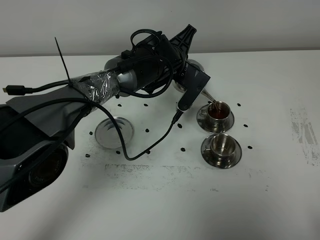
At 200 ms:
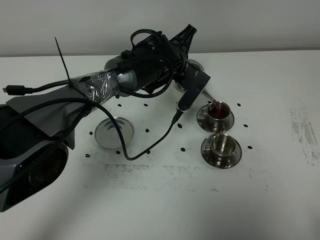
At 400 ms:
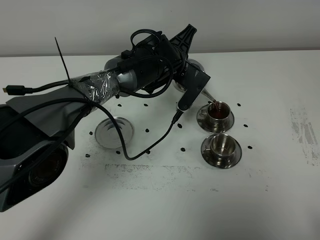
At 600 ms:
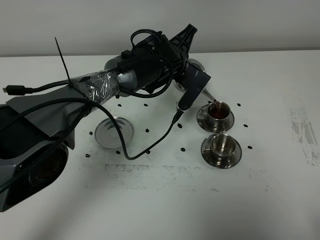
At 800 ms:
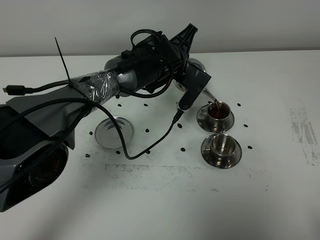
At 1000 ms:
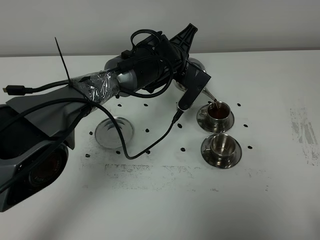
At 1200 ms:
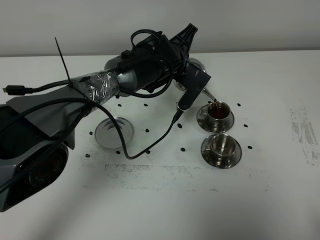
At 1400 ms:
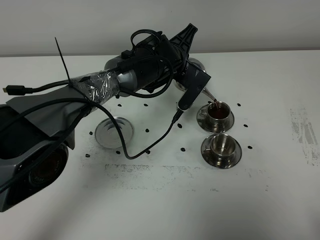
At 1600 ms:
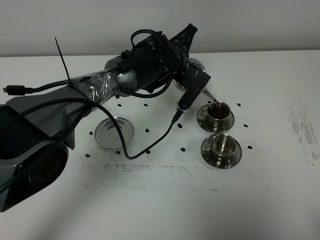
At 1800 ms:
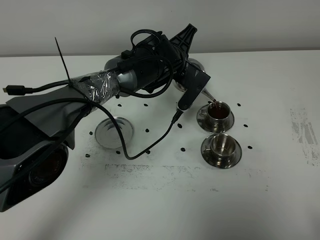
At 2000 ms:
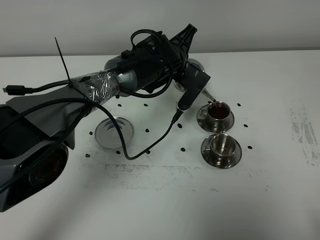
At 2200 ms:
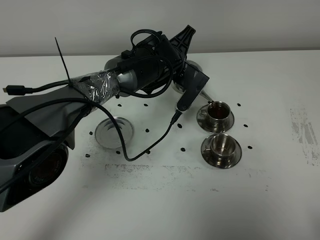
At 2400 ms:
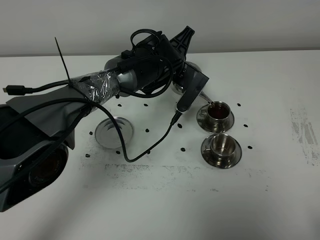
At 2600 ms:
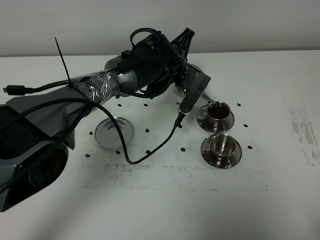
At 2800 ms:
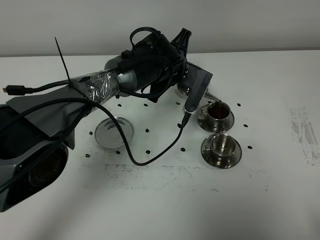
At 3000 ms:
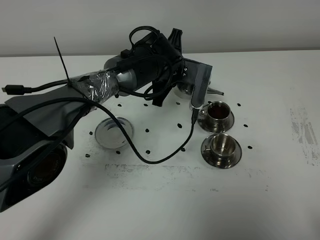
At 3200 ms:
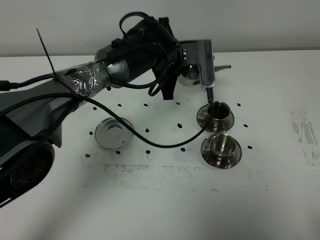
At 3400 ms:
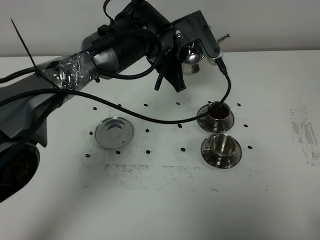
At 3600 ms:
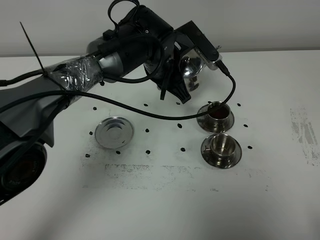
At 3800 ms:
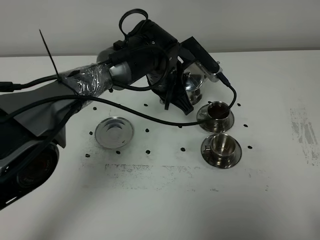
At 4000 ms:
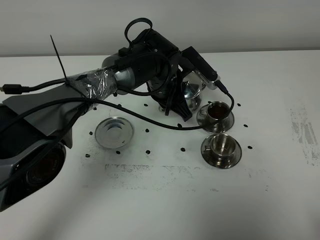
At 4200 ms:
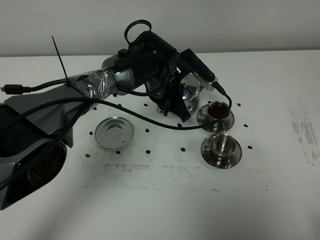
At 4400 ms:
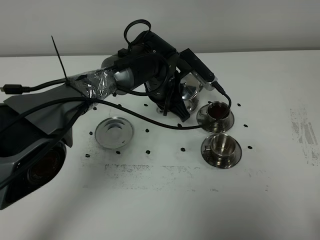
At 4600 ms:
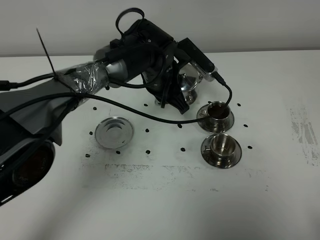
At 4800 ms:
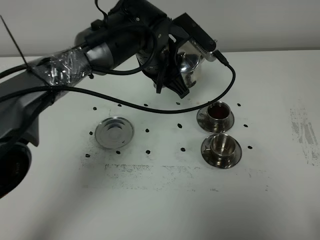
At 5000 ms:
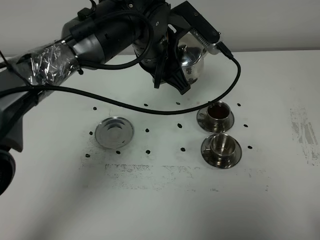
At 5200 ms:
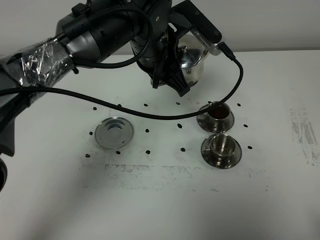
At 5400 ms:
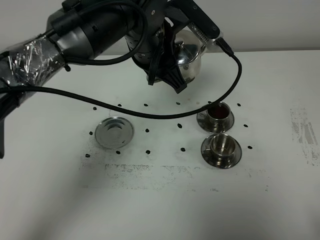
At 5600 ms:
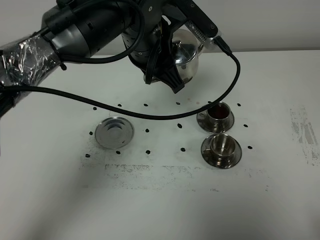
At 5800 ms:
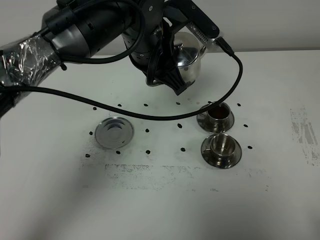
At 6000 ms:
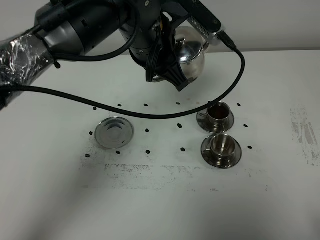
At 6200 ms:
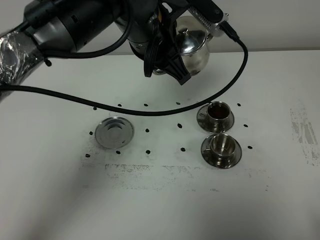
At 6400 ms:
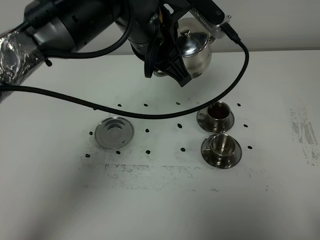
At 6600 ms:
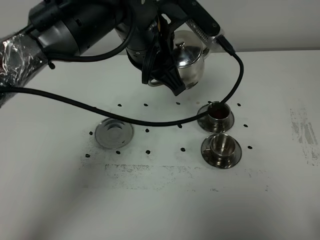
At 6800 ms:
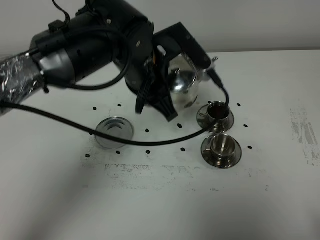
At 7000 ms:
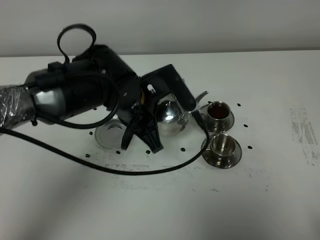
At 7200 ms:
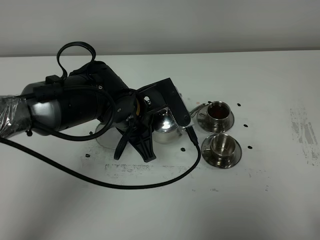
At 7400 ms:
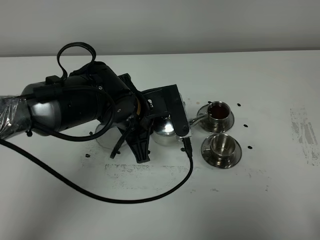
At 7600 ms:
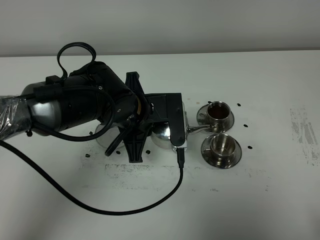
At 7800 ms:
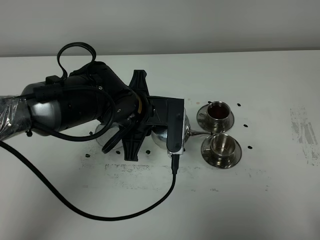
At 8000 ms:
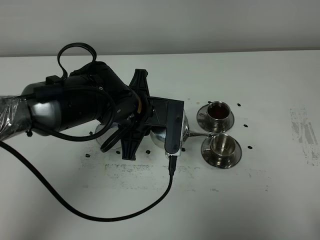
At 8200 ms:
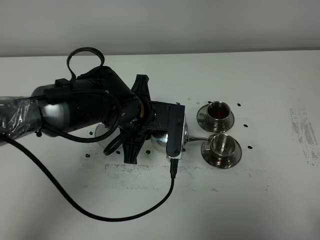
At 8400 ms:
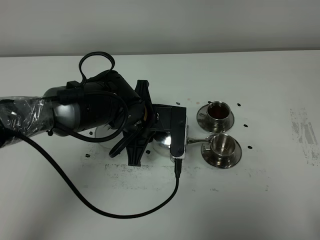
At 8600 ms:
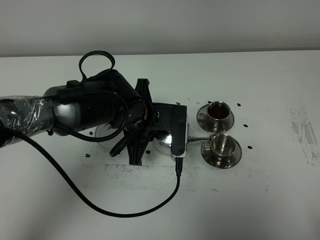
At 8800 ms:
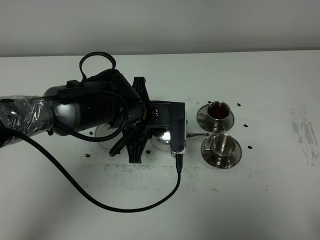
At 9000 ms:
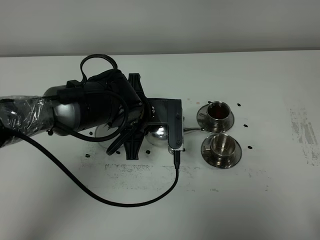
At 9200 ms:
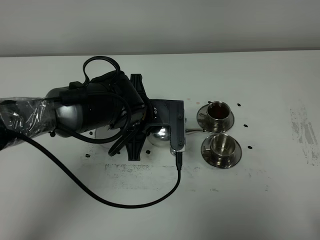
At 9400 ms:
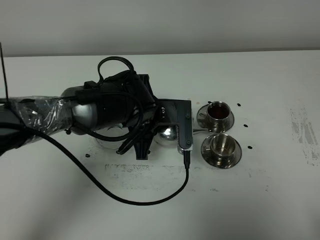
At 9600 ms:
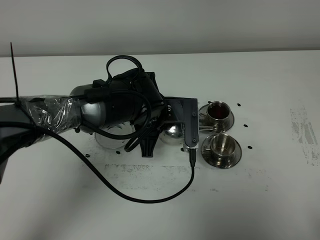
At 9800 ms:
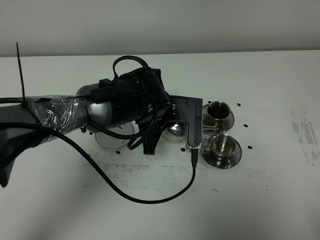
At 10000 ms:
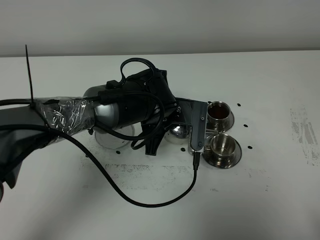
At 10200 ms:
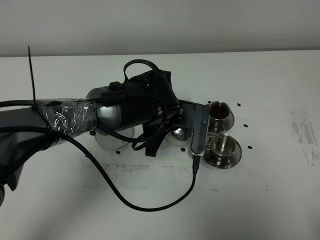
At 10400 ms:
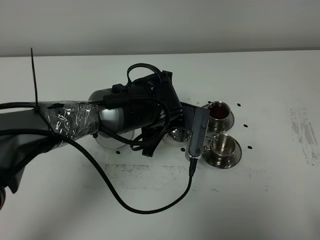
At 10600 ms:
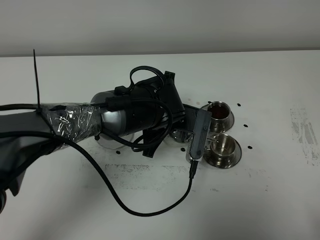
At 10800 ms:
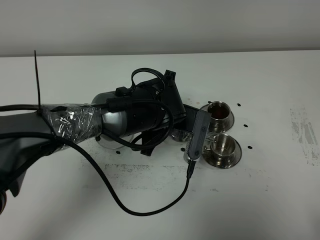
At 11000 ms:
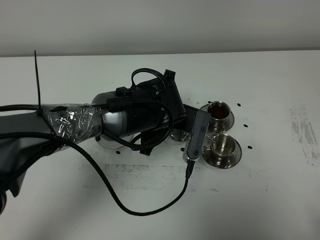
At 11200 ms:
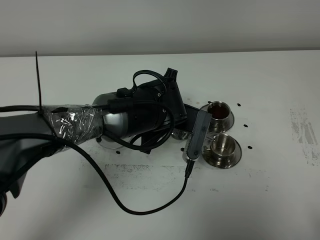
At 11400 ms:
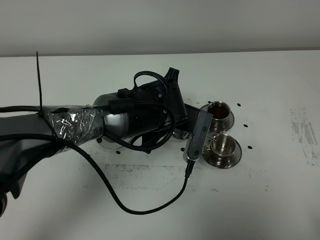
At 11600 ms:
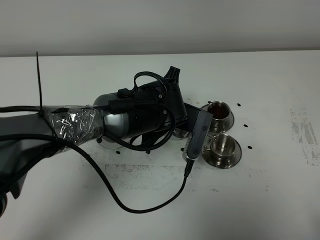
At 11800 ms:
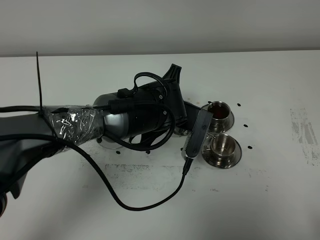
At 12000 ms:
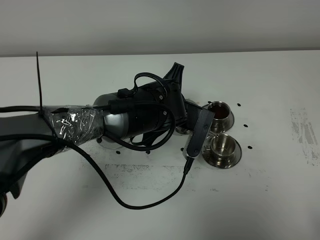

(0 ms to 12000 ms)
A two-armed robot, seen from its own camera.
Task of the whole recording: grasp the stainless steel teapot and pour the tea into the two stainless steel teacups one by one, put the stainless steel teapot back in its original place.
Step, 0 ms - 2800 ms: Pour tea into the teacup with the left gripper.
0 ms - 1600 ms: The two grippers keep their place.
3000 ms - 4400 ms: The left gripper reaches approximately 5 cm upward, then returns.
4400 ms - 6000 ms: The left gripper is displaced upward and backward by some 15 cm.
6000 ms - 7600 ms: The left gripper heads downward, covering roughly 10 cm.
7600 ms - 9000 ms: The grippers make only small movements.
9000 ms - 10400 ms: The left gripper heads to the right, covering about 5 cm.
10400 ms - 12000 ms: There are only small adjustments of the grippers.

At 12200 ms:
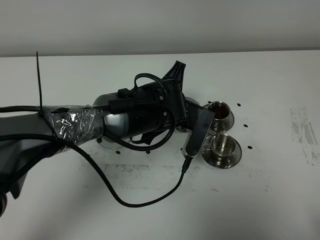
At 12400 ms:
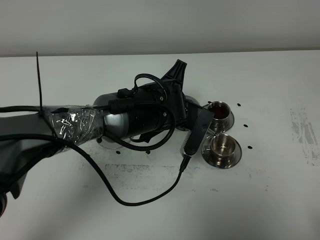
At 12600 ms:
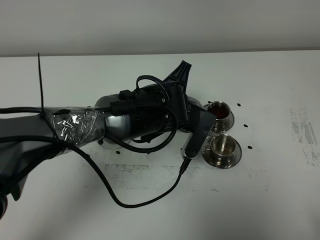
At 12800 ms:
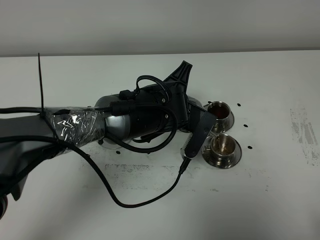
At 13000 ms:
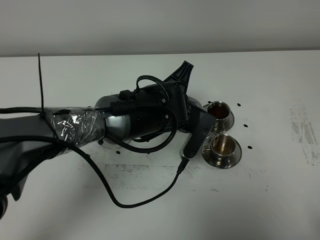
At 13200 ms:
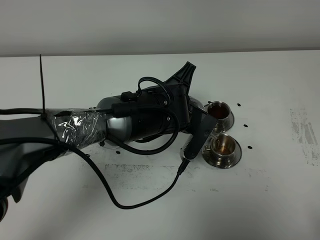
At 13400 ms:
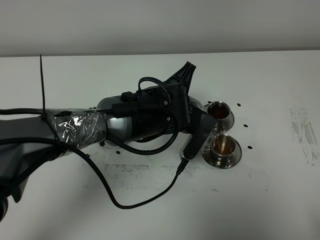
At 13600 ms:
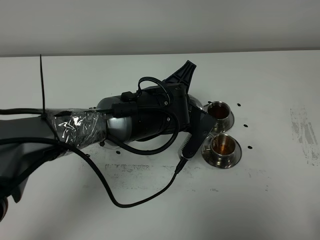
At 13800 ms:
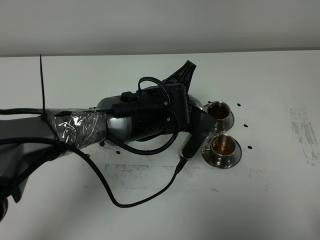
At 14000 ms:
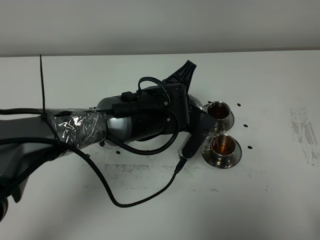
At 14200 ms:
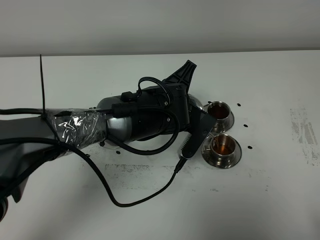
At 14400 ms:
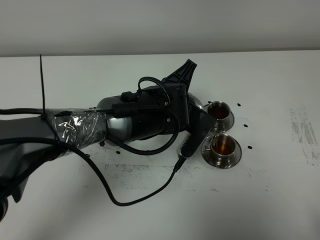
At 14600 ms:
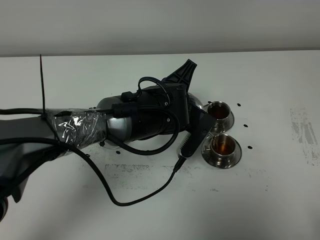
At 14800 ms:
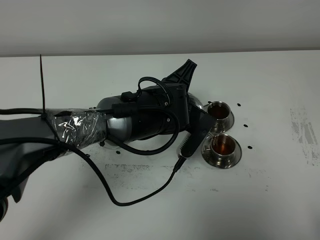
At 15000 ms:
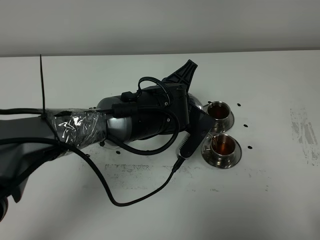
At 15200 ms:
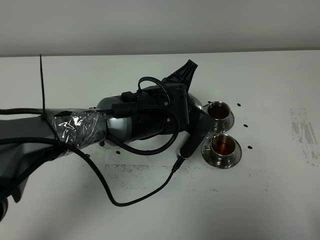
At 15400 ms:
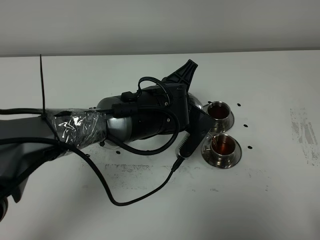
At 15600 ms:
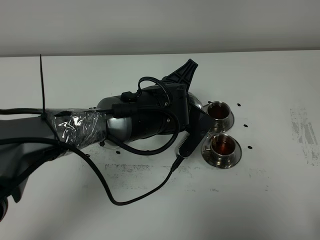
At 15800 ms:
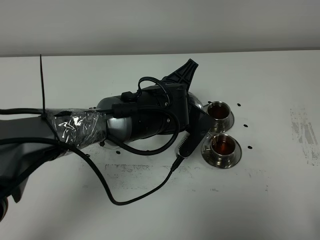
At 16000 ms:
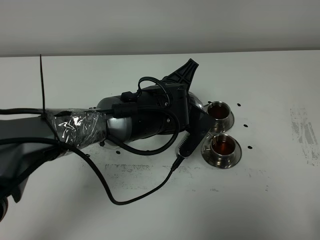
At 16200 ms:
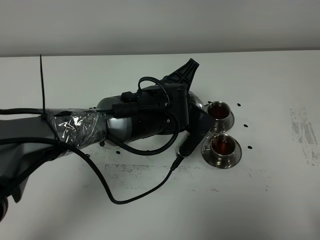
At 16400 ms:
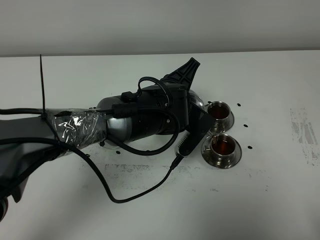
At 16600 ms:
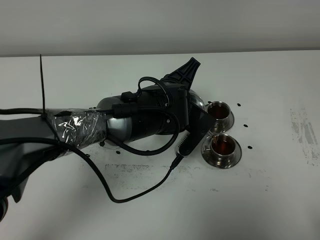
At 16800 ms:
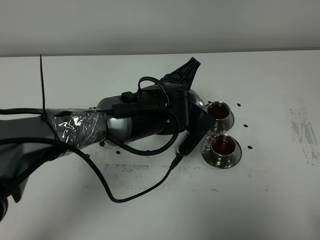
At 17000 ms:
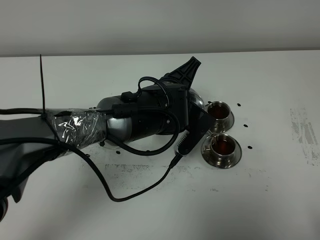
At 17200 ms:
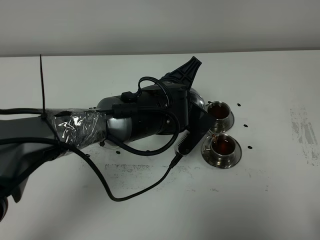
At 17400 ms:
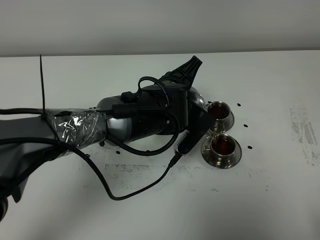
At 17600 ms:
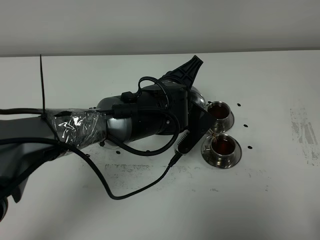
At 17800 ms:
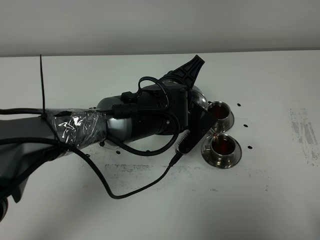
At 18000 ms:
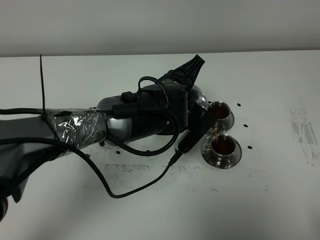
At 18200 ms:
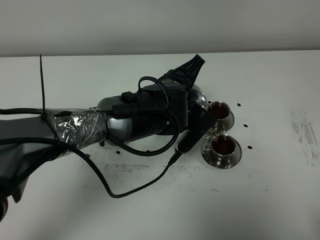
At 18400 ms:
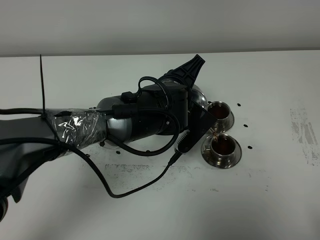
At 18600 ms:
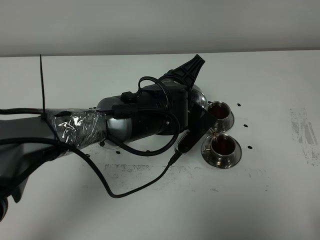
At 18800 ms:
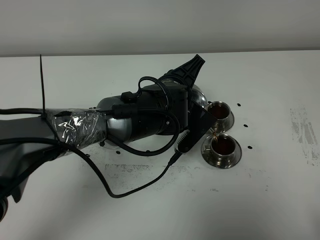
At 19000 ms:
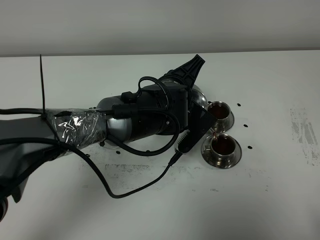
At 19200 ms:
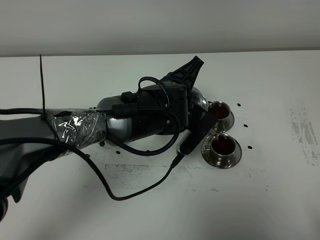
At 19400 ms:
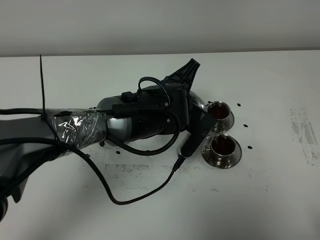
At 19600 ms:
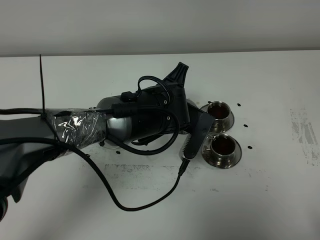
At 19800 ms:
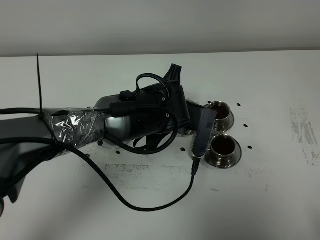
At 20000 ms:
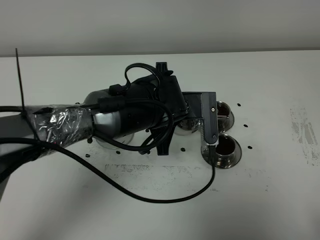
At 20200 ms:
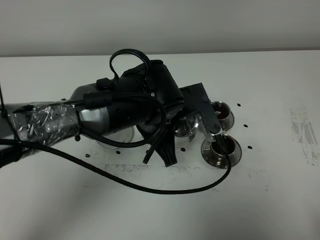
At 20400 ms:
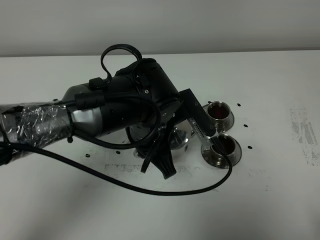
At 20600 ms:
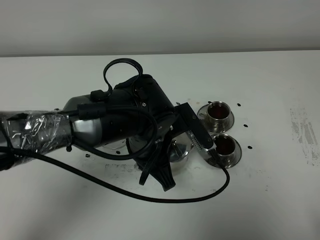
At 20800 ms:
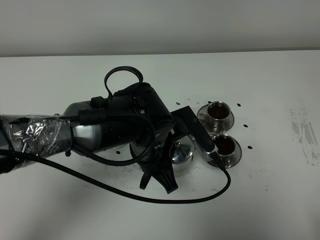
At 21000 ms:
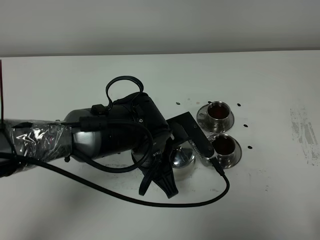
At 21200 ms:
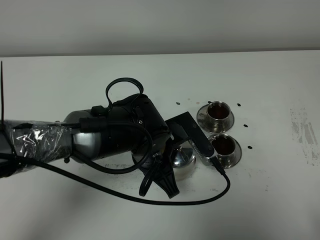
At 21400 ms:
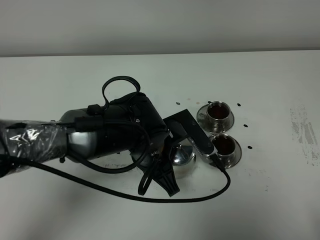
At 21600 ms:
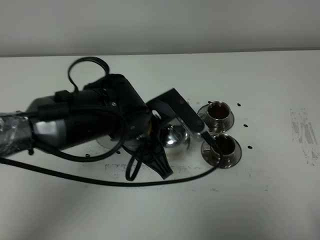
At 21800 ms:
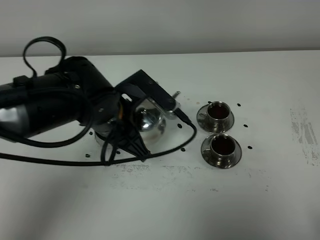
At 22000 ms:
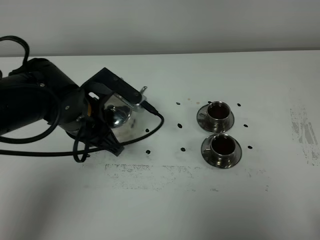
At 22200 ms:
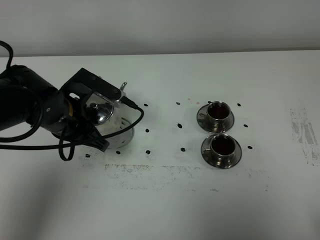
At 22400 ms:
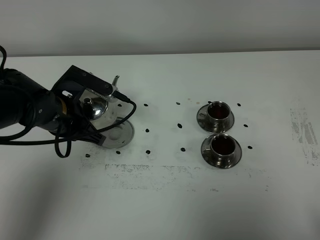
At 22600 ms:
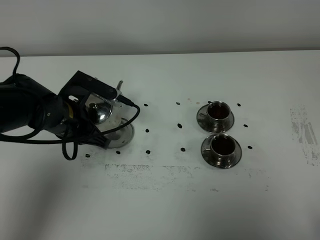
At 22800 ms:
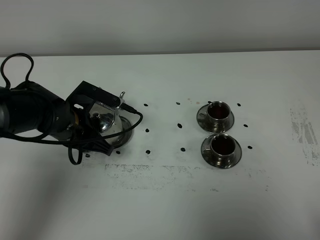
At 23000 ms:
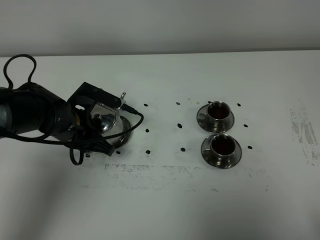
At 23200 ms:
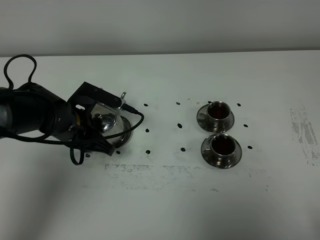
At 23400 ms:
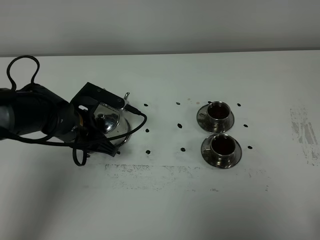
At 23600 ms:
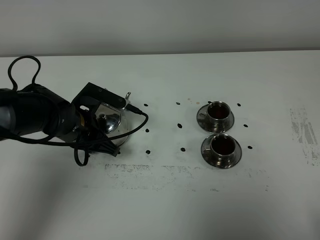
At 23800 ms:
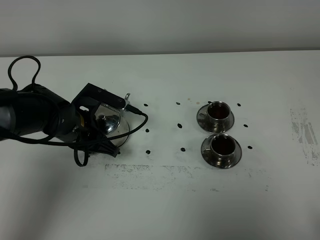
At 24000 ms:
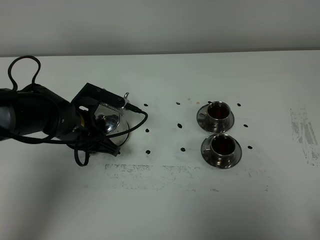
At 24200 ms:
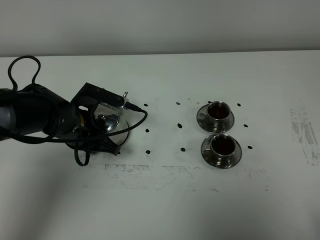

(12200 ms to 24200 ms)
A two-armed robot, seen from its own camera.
Task of the whole recording: grasp the stainless steel teapot and pour the tea into the two stainless steel teacups one by one, put the stainless steel teapot back in its original place.
Step, 12200 ms - 20000 ms: Pour tea into the teacup with the left gripper.
12200 ms - 13800 ms: There are only small adjustments of the grippers.
13800 ms - 15200 ms: Both grippers stay about where they are.
15200 ms - 16600 ms: Both grippers stay about where they are.
16600 ms - 18200 ms: Both grippers stay about where they are.
19800 ms - 21200 ms: The left gripper moves backward, roughly 5 cm.
21200 ms - 22600 ms: The left gripper goes roughly 15 cm to the left.
22600 ms - 24200 ms: The grippers stay close to where they were, moving slightly.
